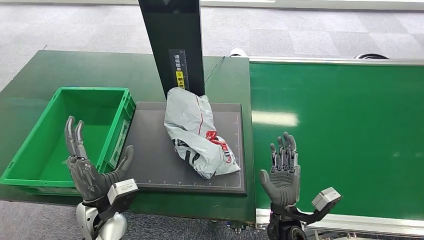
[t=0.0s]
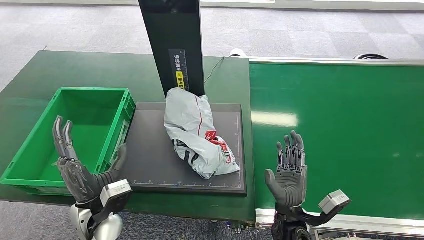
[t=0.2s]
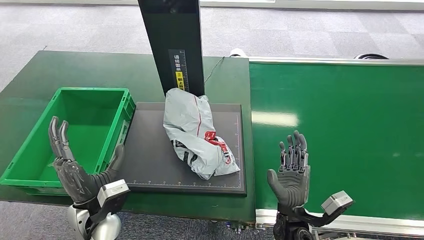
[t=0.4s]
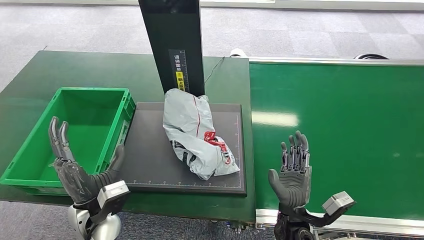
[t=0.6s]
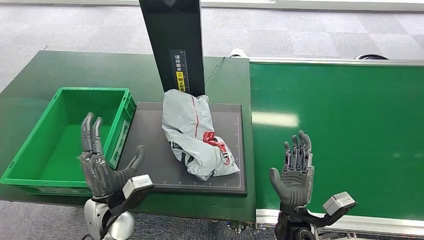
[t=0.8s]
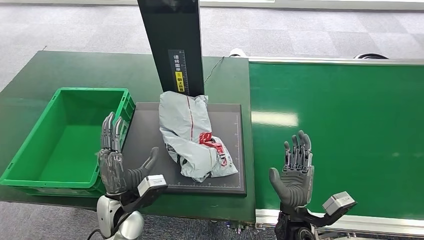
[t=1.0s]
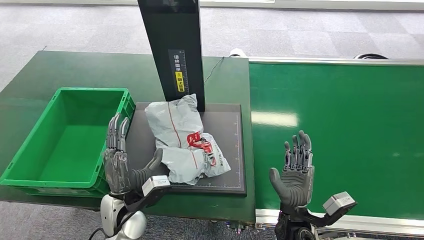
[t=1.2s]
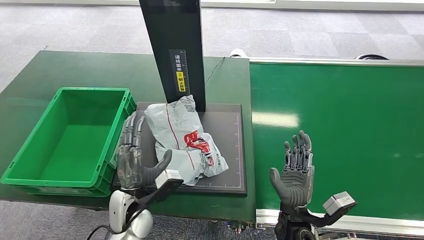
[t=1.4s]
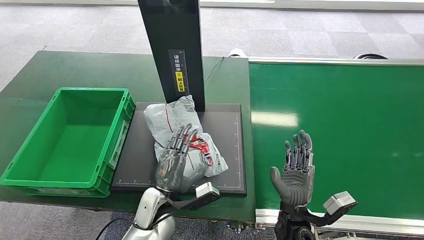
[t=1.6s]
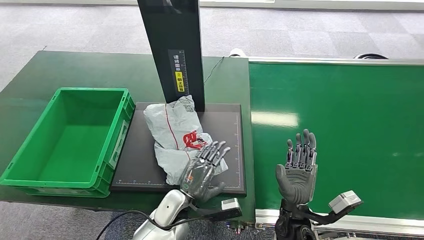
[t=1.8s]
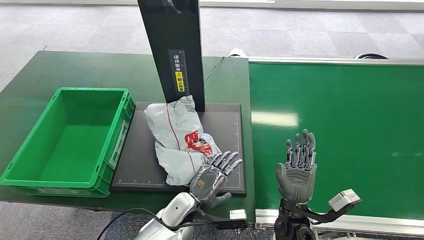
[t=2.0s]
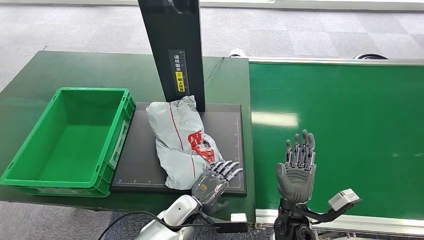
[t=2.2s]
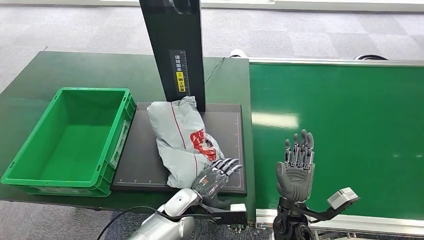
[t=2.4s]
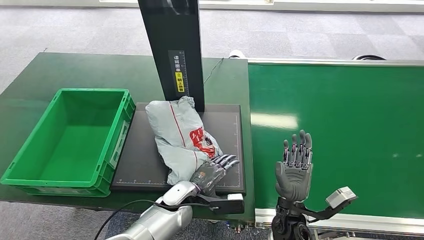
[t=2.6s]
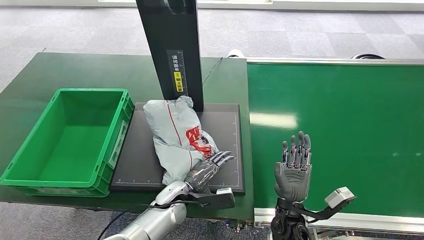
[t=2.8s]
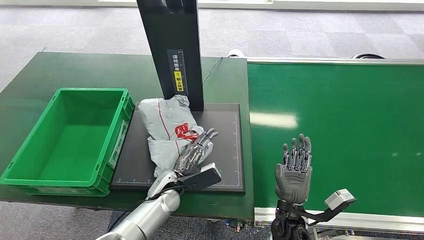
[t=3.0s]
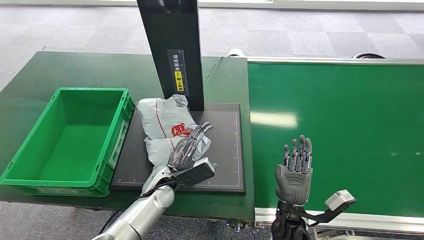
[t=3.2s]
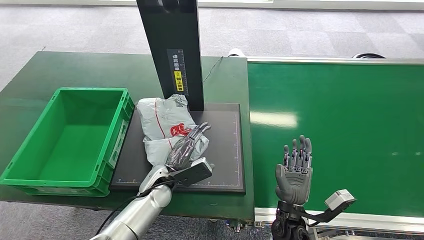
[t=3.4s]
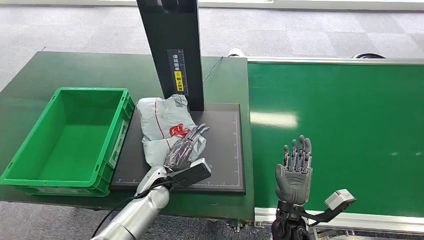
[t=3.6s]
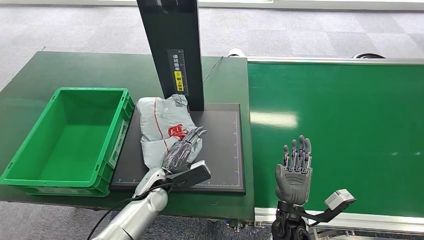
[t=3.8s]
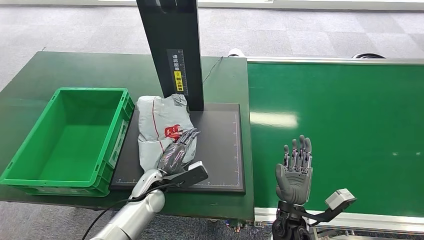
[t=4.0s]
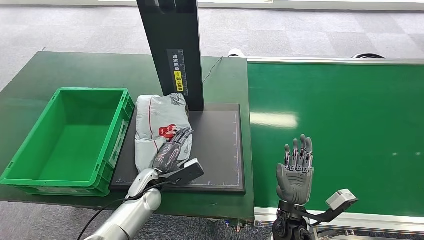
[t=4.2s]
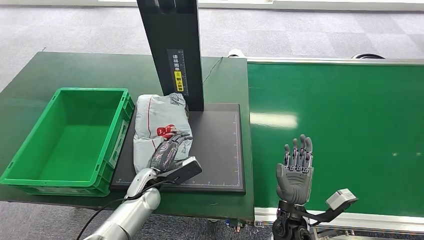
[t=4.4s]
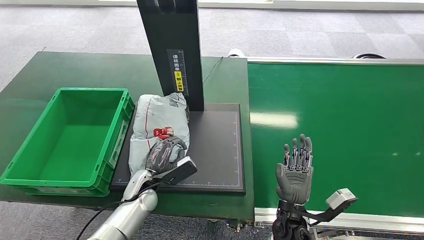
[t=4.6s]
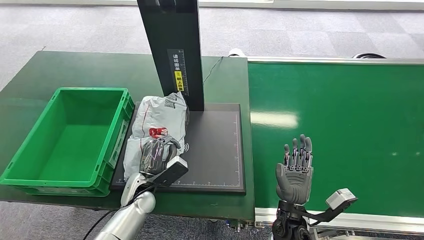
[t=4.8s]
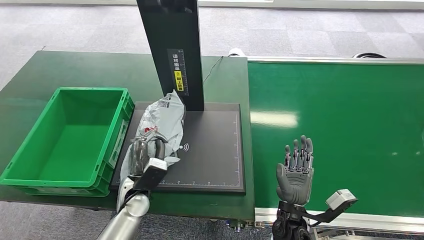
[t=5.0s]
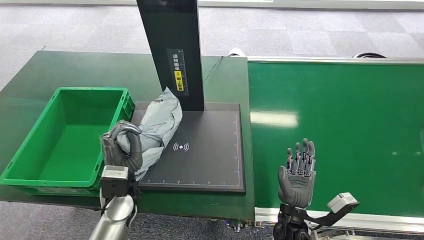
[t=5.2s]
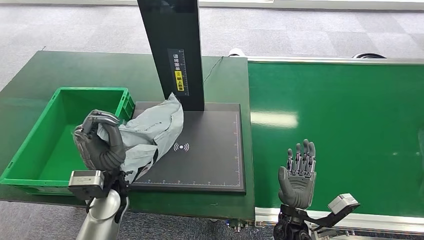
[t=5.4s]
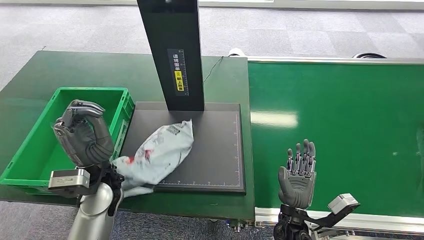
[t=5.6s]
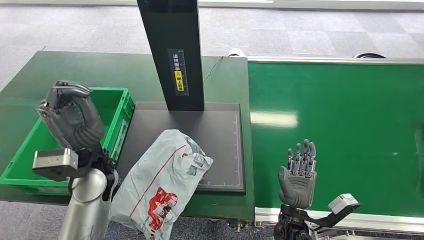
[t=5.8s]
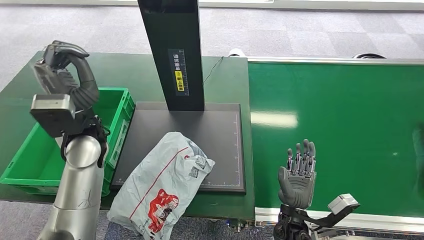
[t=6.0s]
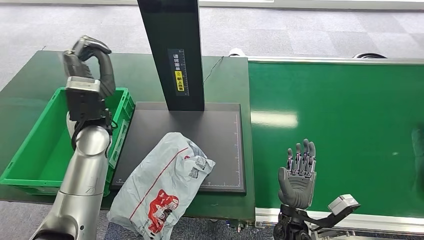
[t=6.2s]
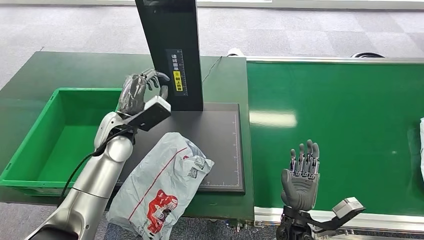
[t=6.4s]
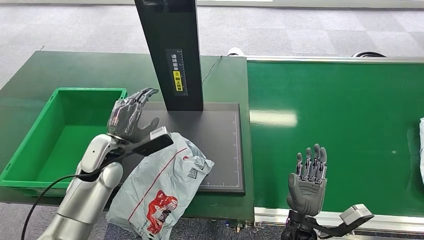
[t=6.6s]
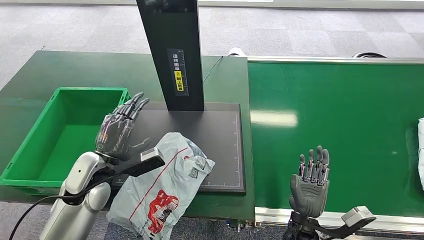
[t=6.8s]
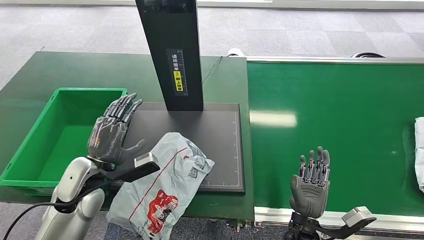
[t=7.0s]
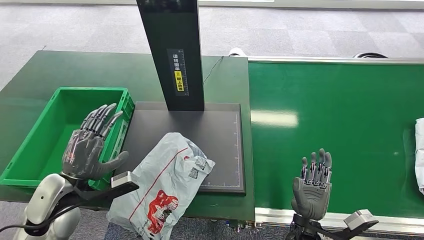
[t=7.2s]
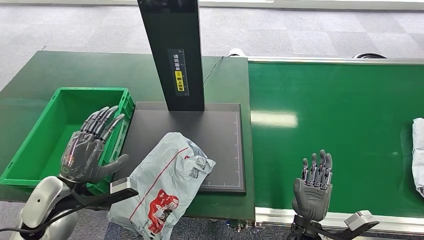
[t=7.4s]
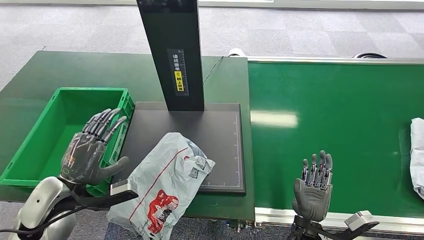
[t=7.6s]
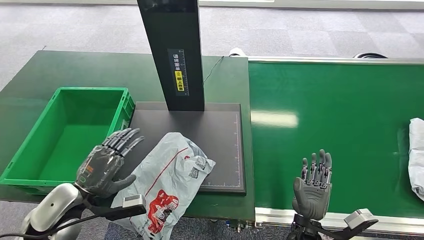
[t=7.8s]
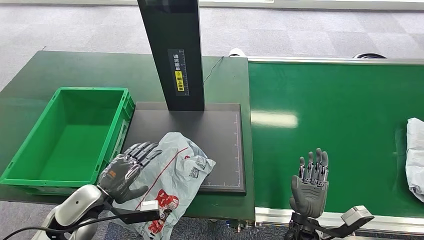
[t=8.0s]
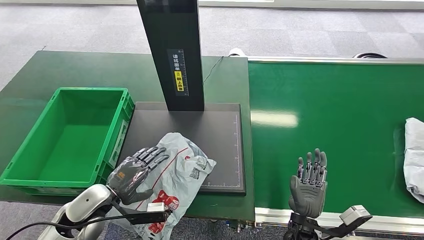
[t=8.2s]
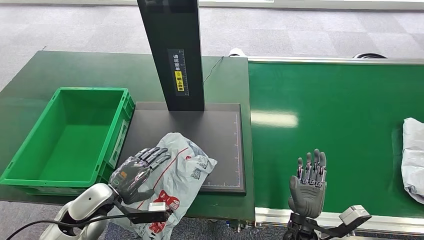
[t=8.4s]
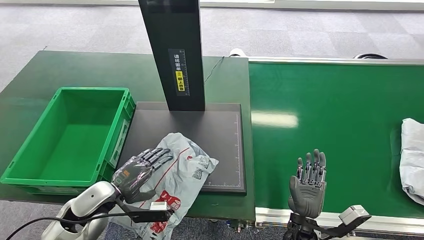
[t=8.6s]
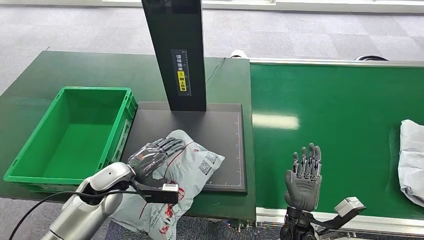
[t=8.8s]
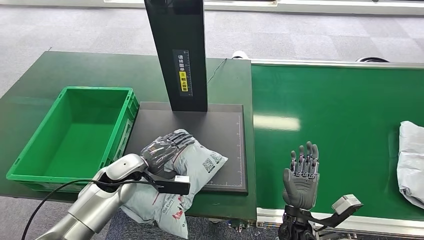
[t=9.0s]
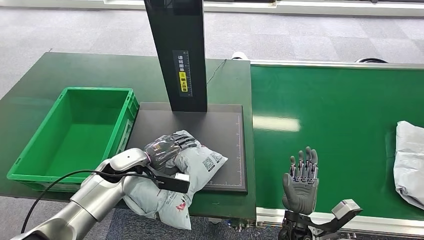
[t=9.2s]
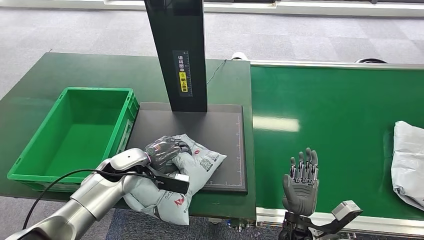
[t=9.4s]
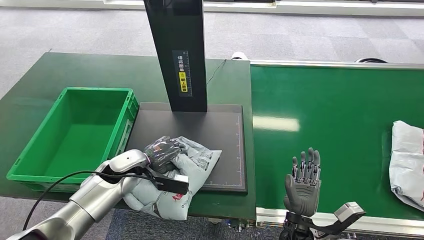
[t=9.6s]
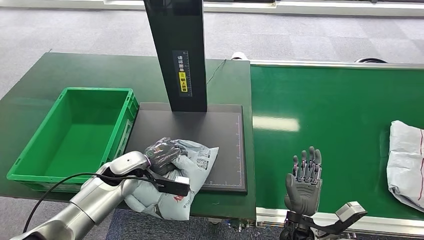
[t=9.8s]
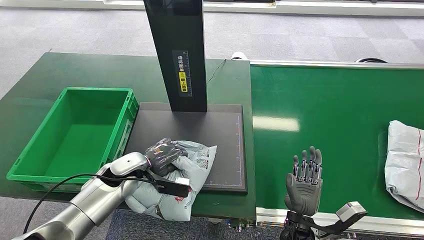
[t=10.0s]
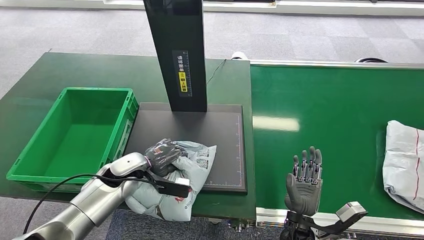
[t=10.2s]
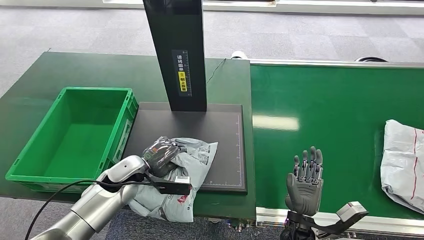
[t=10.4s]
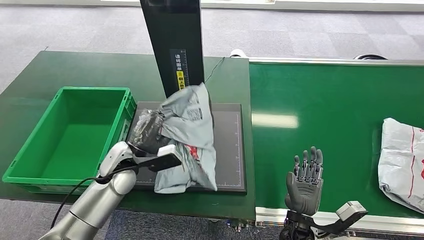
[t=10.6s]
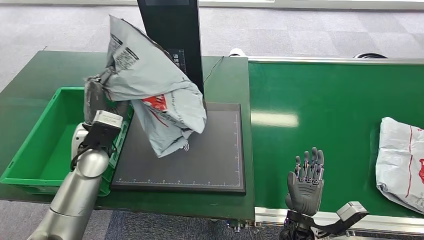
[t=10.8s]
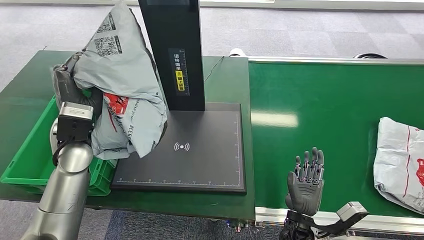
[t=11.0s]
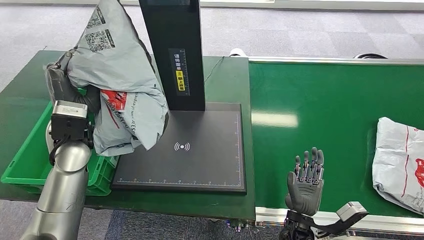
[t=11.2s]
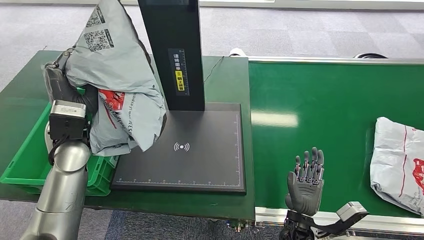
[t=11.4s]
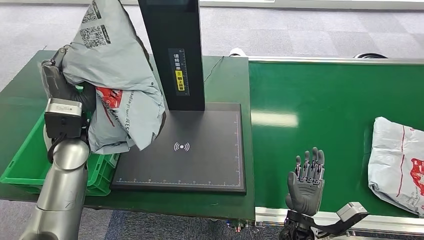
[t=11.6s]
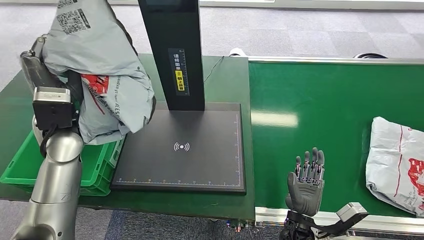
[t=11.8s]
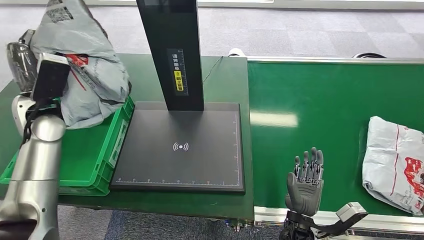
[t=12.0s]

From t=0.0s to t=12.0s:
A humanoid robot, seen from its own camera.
Step, from t=1.6s to t=11.0s: Pick up the package from the inbound machine.
From t=0.0s to t=1.6s: The left hand shifts roughly 10 cm to the right.
From t=1.6s to t=3.0s: The left hand heads forward, covering roughly 5 cm.
From t=3.0s to t=4.4s: The left hand moves to the left, approximately 5 cm.
From t=6.0s to t=7.6s: The left hand is displaced backward, downward and to the left by about 15 cm.
From t=9.0s to t=10.4s: The hands move only a little.

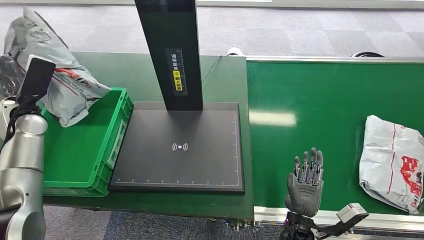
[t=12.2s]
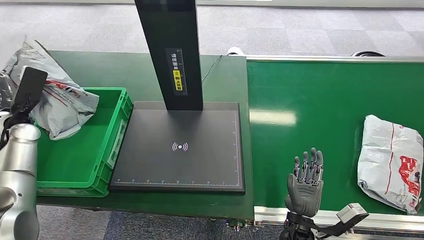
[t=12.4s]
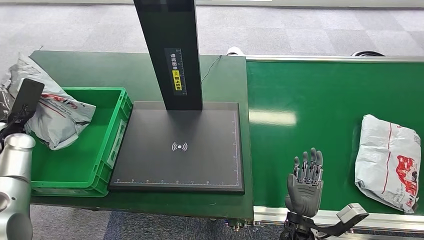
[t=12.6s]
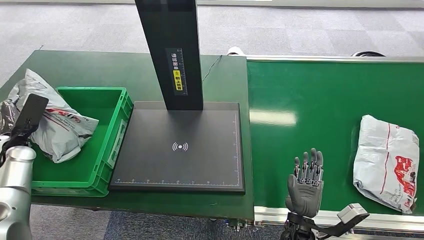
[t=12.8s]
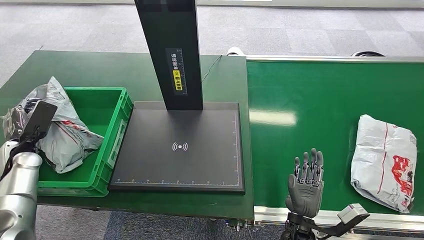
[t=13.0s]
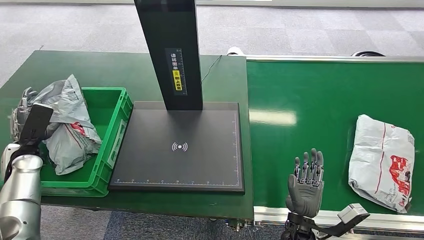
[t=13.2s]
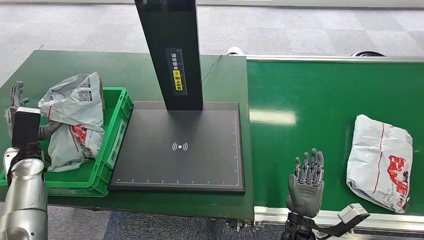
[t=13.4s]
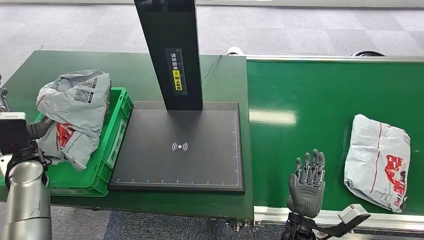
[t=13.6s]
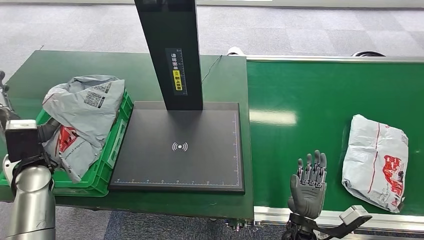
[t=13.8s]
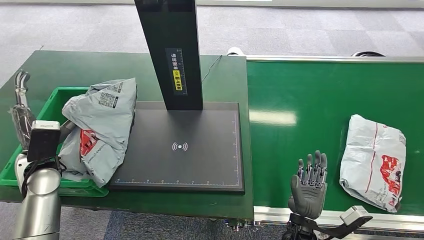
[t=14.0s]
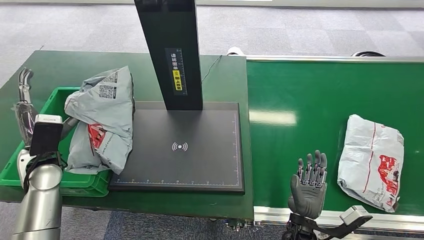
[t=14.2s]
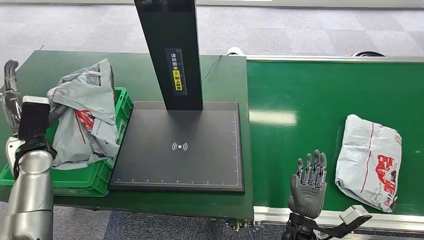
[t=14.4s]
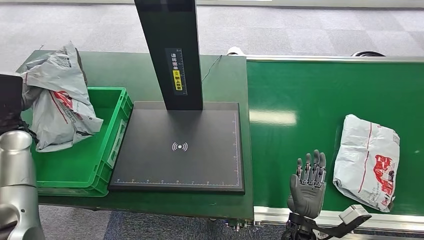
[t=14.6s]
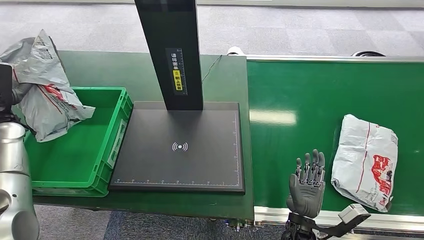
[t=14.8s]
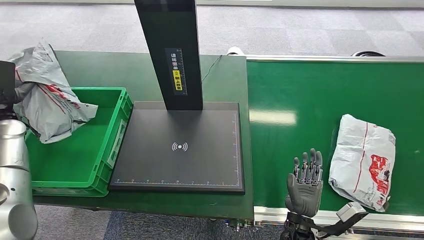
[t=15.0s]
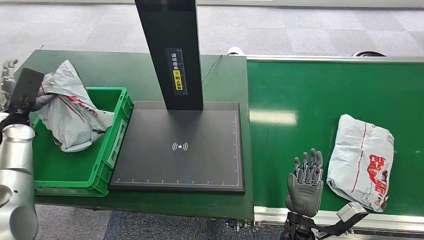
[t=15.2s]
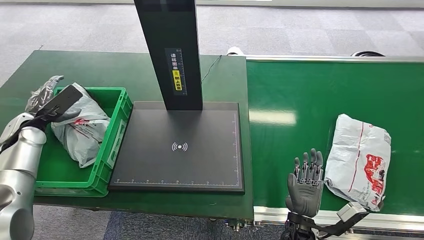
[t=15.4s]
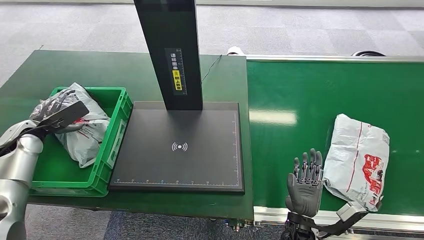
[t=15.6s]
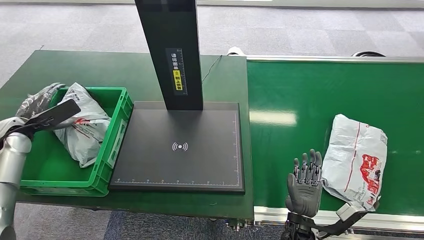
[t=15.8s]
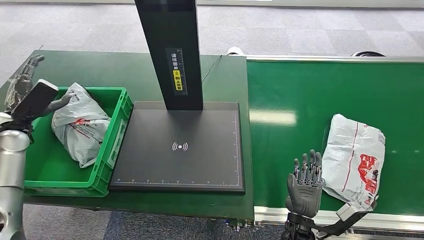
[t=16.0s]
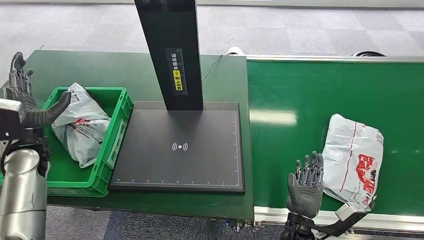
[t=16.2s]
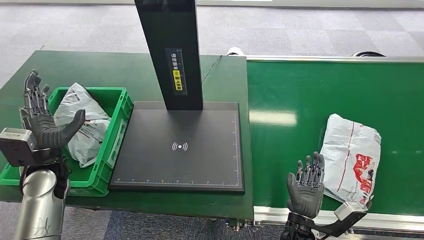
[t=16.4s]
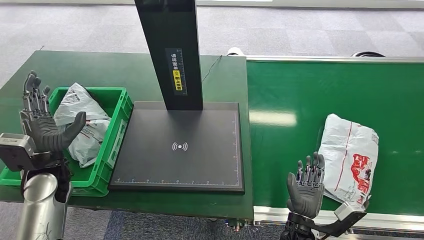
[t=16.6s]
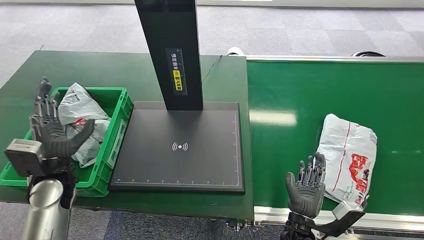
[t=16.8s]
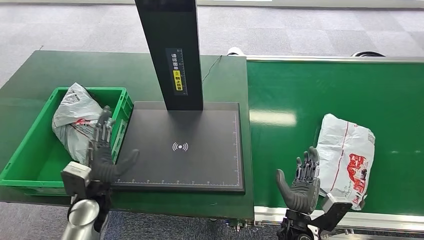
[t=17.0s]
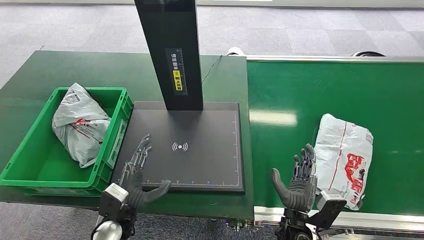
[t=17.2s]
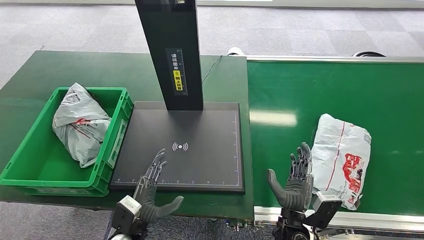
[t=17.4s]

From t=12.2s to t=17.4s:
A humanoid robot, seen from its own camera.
Step, from t=12.2s to t=17.4s: Place the package into the parcel locker.
From t=14.0s to t=15.6s: The left hand moves to the left and forward, some 15 cm.
From t=15.6s to t=17.4s: The left hand shifts some 40 cm to the right, backward and downward.
